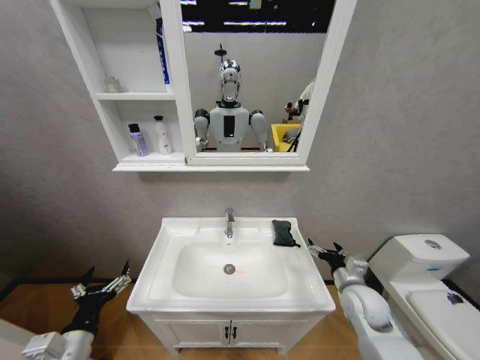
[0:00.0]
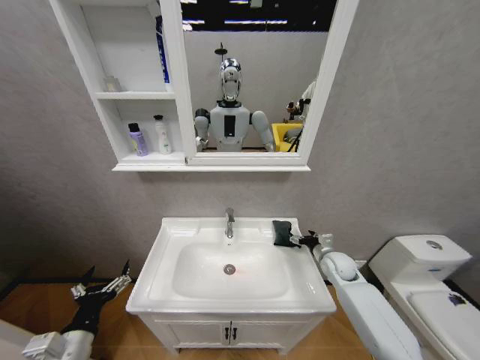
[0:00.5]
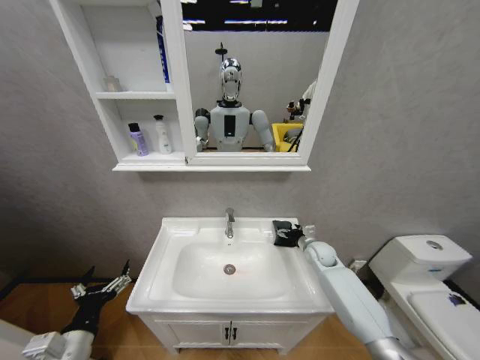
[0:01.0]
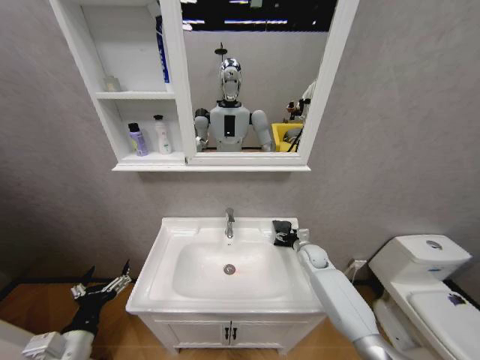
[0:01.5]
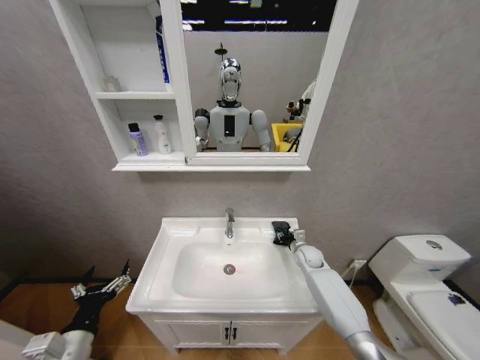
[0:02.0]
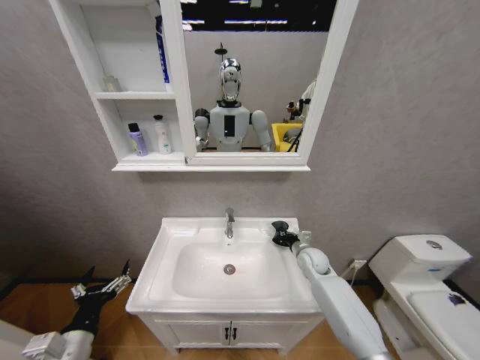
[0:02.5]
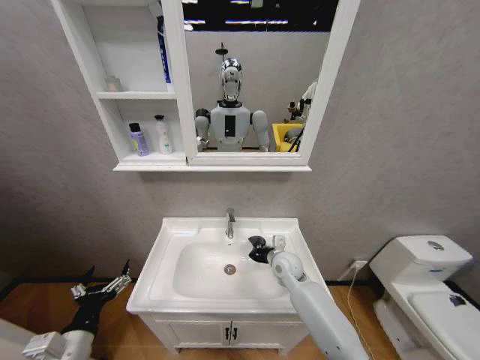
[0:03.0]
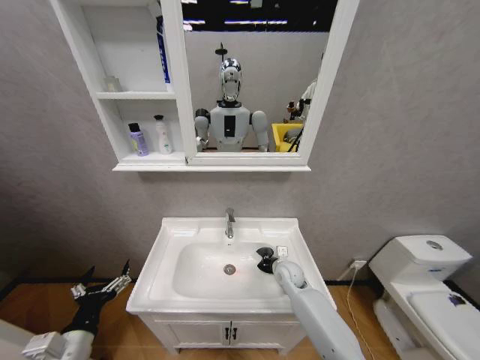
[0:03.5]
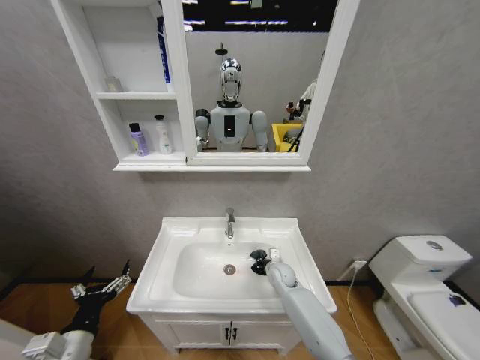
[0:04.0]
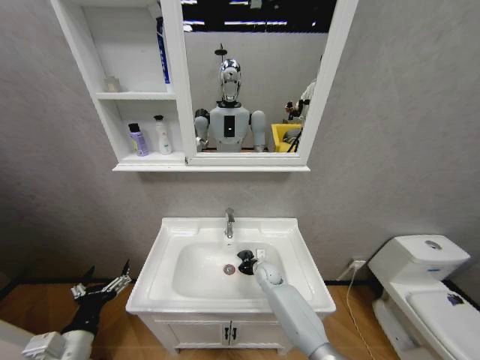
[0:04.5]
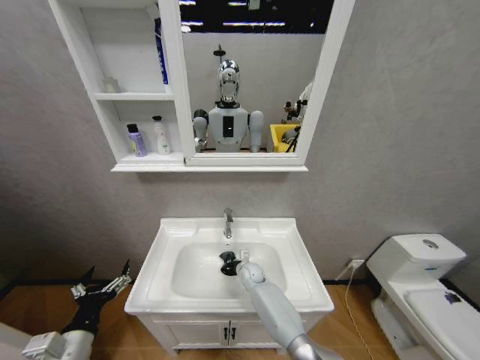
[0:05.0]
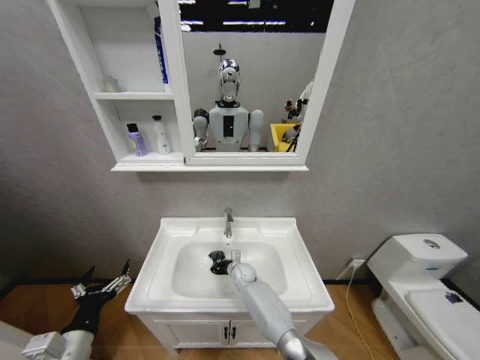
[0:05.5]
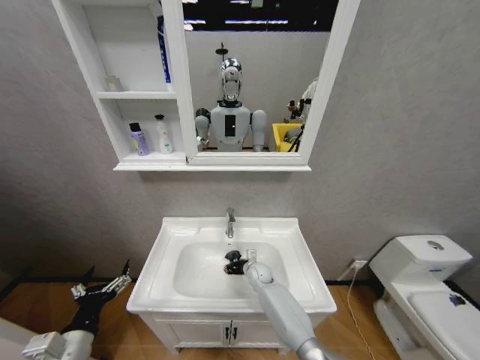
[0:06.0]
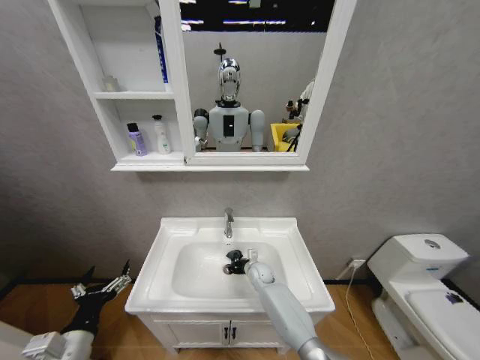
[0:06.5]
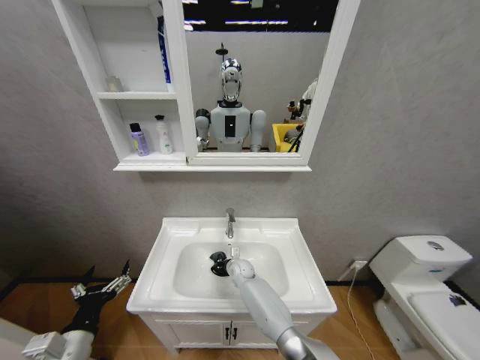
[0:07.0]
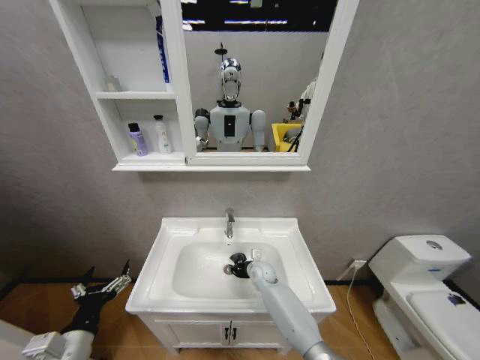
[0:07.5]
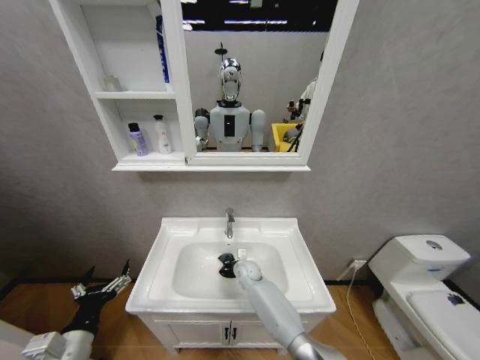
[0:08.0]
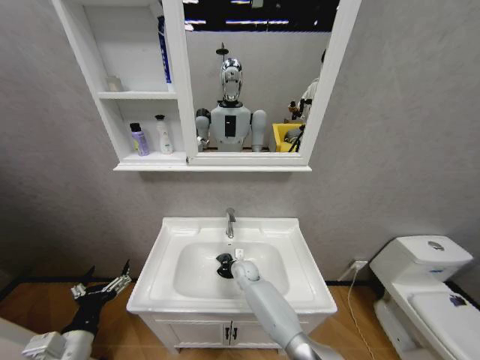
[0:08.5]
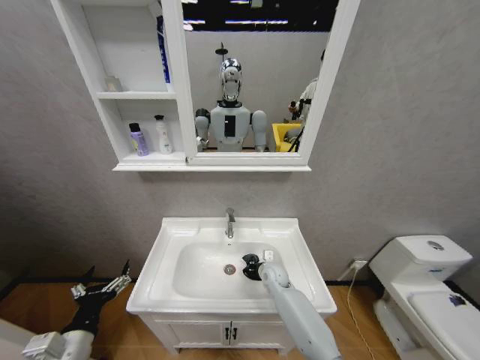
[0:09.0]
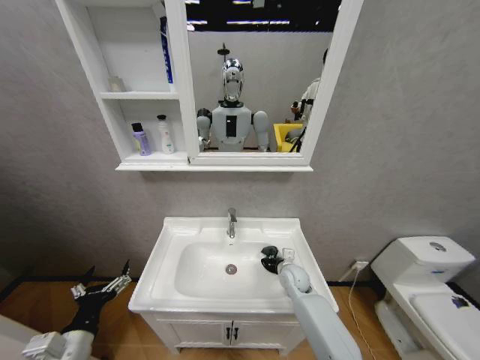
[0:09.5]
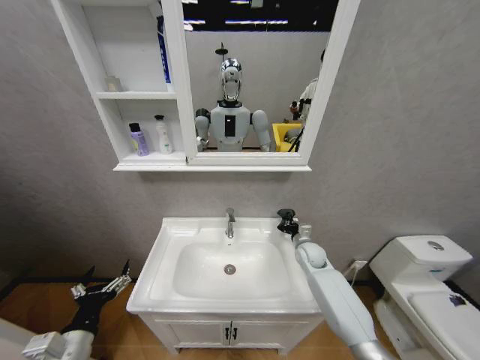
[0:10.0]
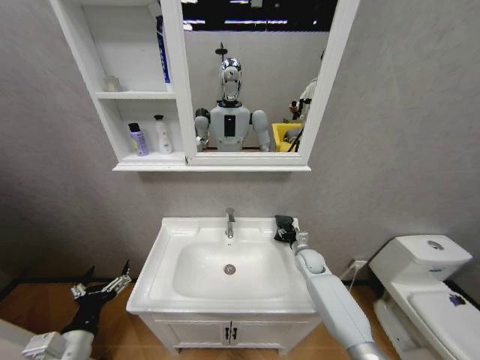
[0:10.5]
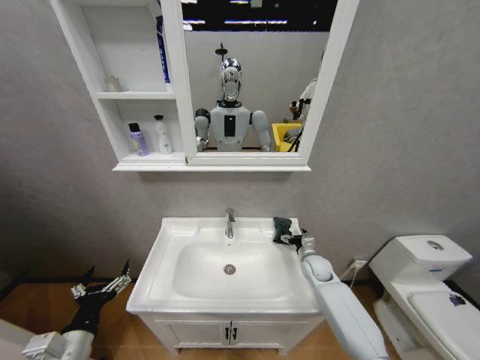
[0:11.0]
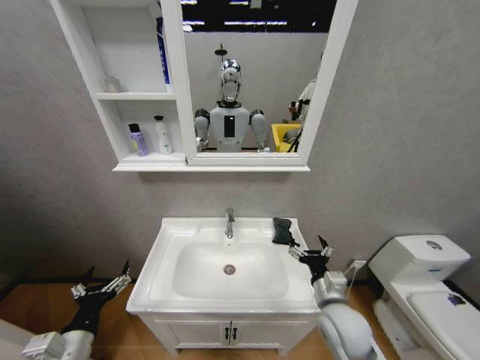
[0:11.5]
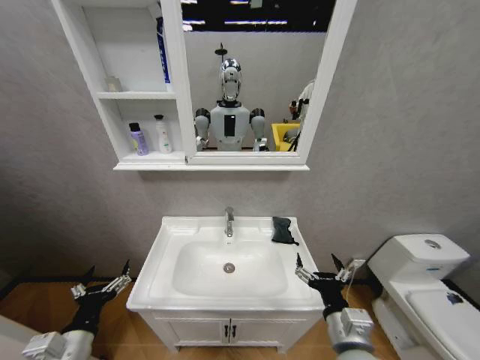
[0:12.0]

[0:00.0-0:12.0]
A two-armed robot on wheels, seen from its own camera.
Task of the whole recording: Move facial cleanser and shampoo from washbasin to cabinet, then wipe washbasin with towel.
0:00.0 to 0:02.0: The right gripper is displaced forward by roughly 20 cm, and closes its fingers.
0:02.0 to 0:04.0: The right gripper heads to the left and backward, covering roughly 15 cm, and closes its fingers.
0:04.0 to 0:06.0: The right gripper goes some 5 cm to the left.
0:06.0 to 0:08.0: The right gripper swings left and right, roughly 10 cm each way, with 2 reversals.
0:08.0 to 0:10.0: The right gripper moves to the right and upward, roughly 25 cm.
0:10.0 to 0:12.0: The right gripper moves backward, some 30 cm, and opens up.

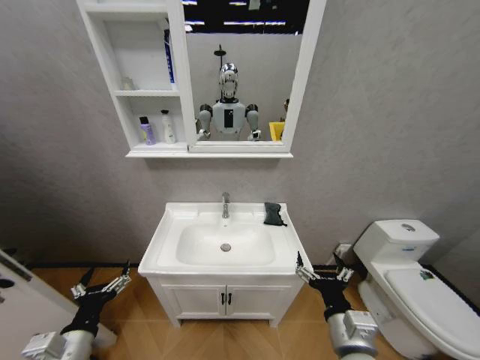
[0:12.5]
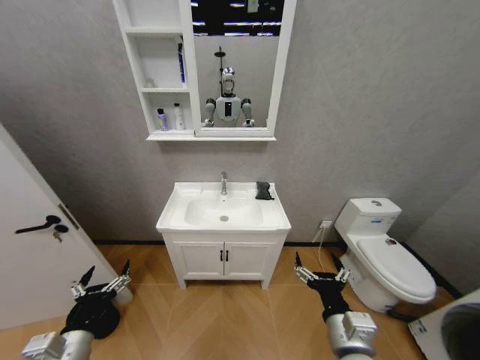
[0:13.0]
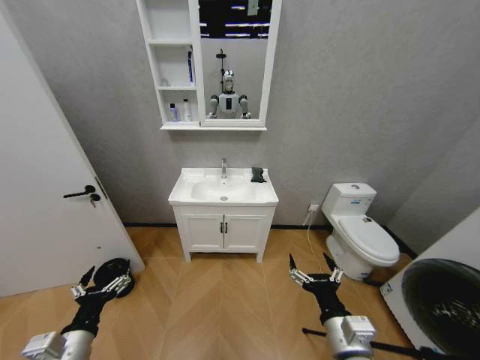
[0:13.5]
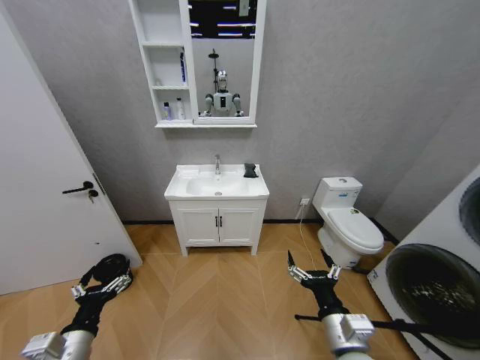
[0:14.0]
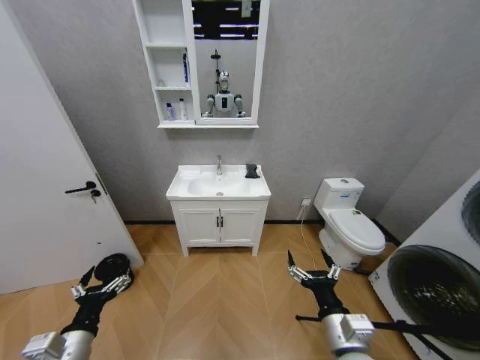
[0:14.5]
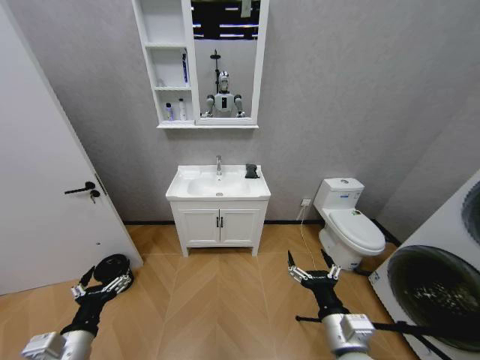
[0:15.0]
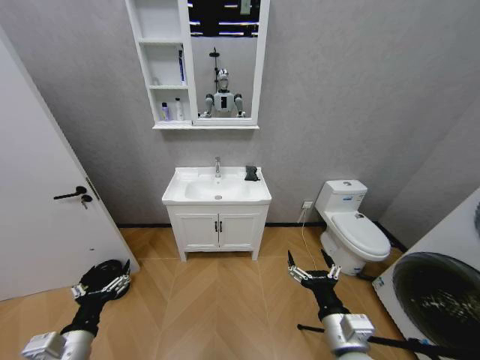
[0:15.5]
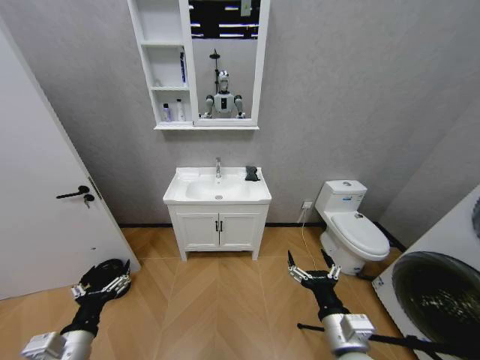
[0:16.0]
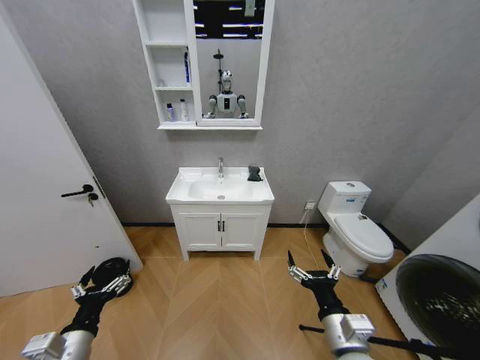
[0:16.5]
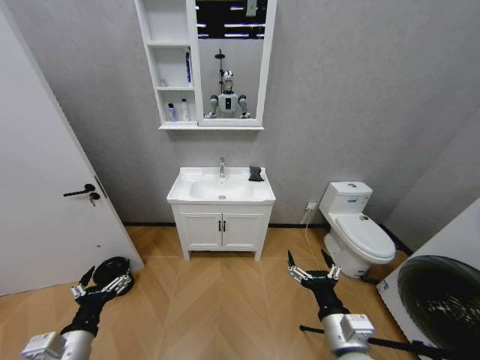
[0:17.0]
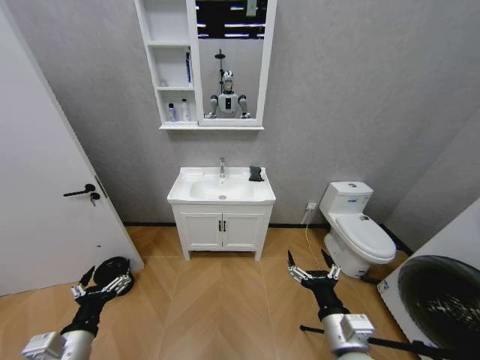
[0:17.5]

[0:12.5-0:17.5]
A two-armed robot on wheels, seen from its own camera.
Task of the whole recording: Move facial cleanser and shampoo from washbasin to cabinet, then wipe washbasin with towel.
0:15.0 to 0:17.5: Both grippers stay put.

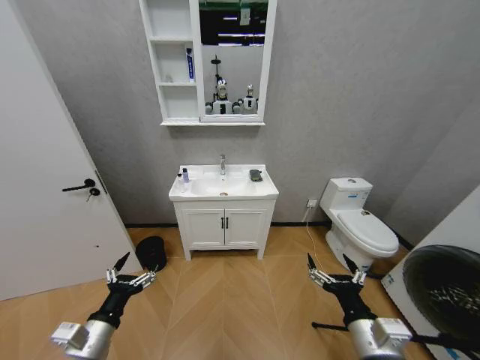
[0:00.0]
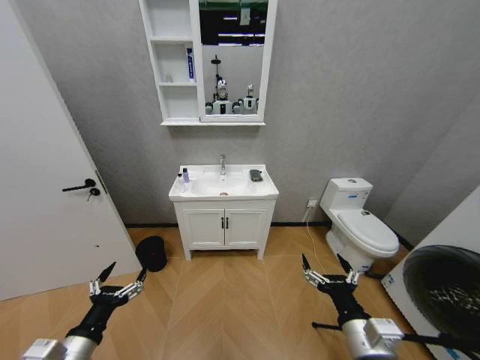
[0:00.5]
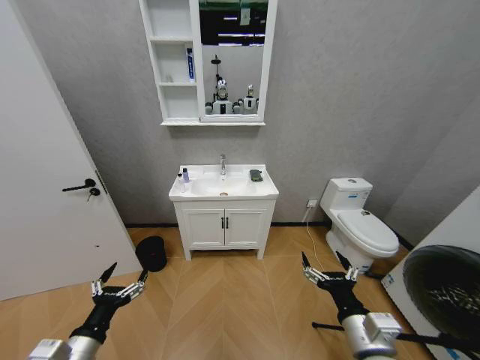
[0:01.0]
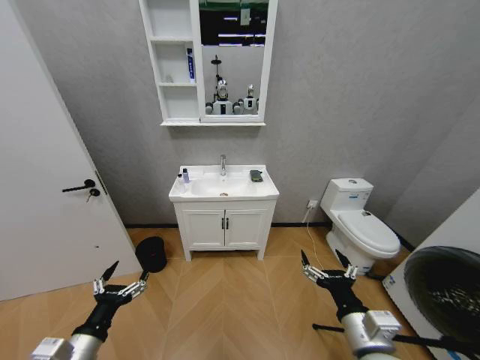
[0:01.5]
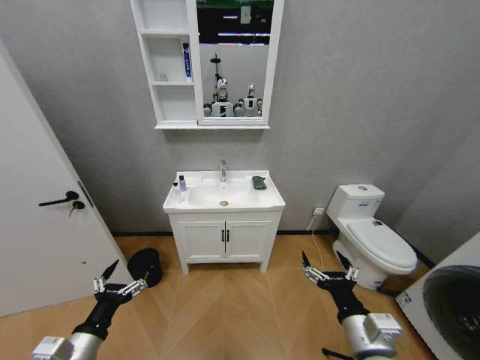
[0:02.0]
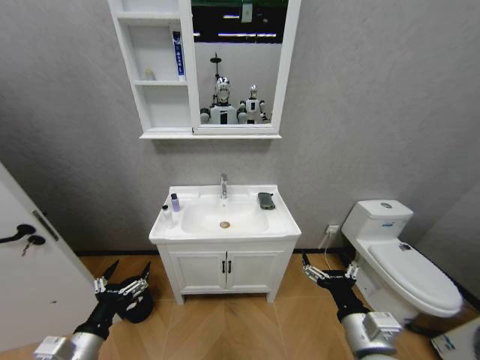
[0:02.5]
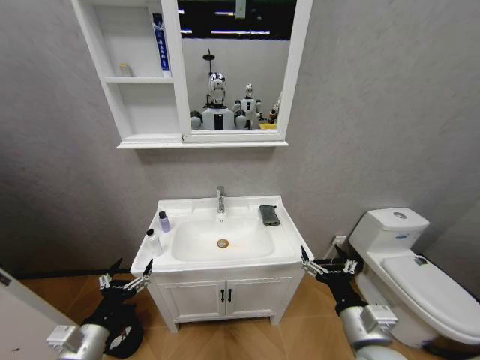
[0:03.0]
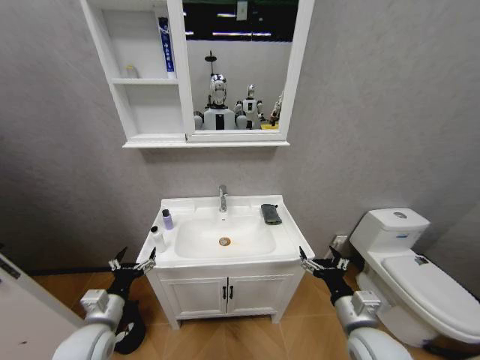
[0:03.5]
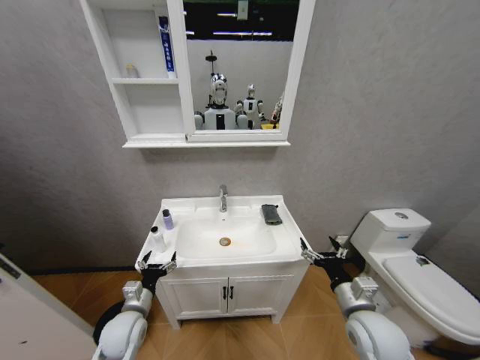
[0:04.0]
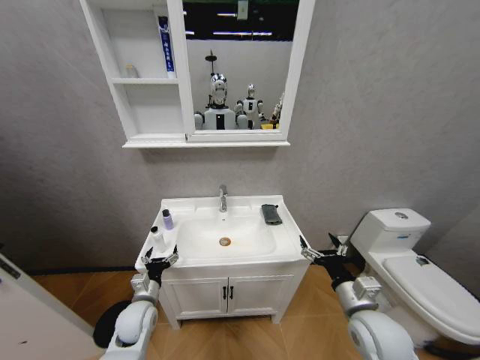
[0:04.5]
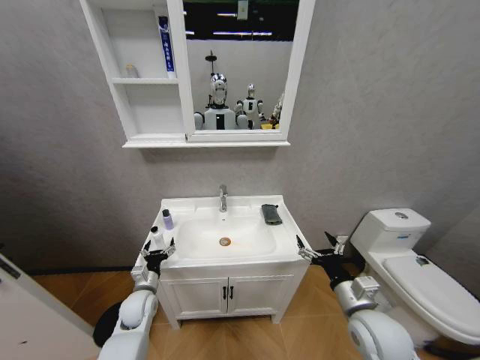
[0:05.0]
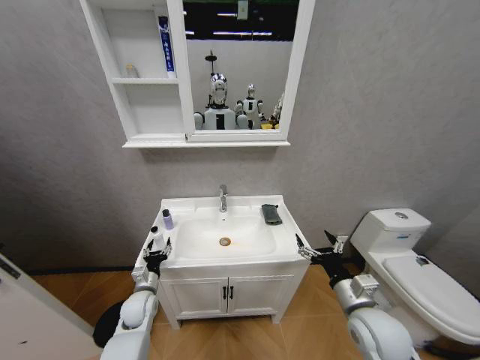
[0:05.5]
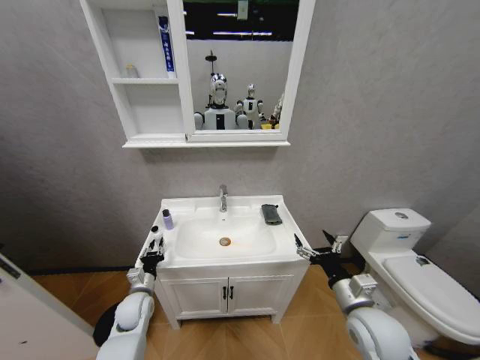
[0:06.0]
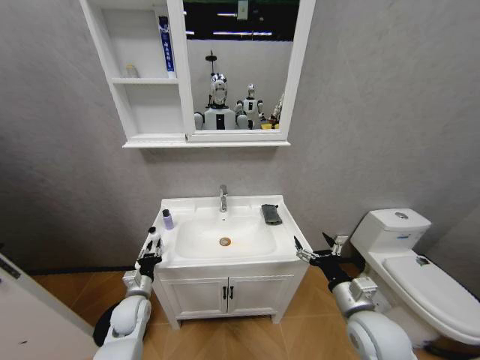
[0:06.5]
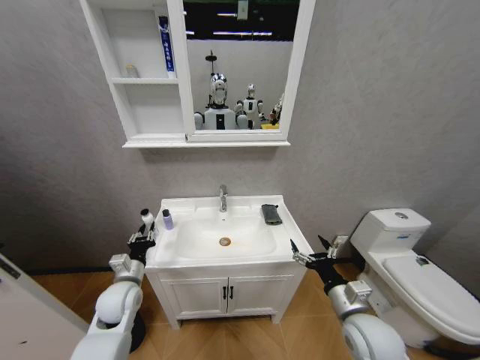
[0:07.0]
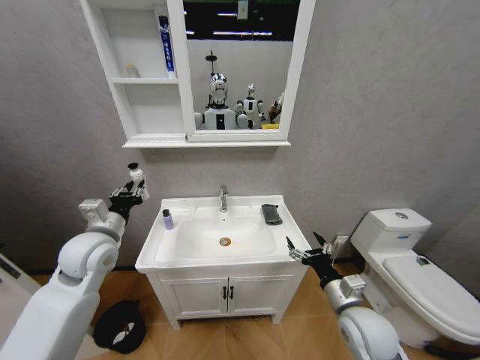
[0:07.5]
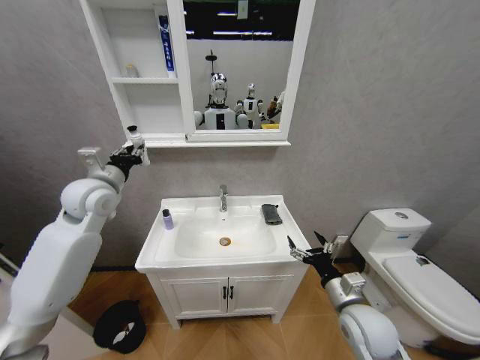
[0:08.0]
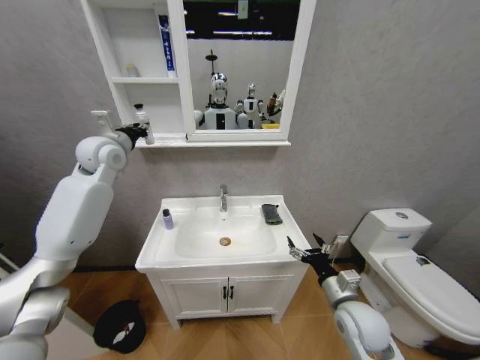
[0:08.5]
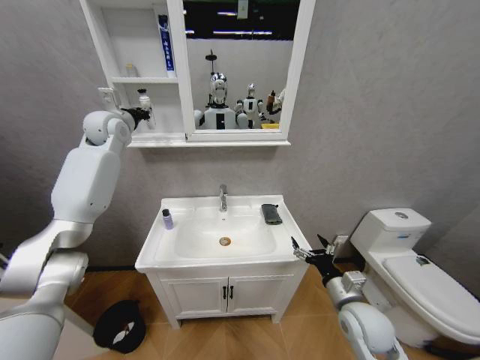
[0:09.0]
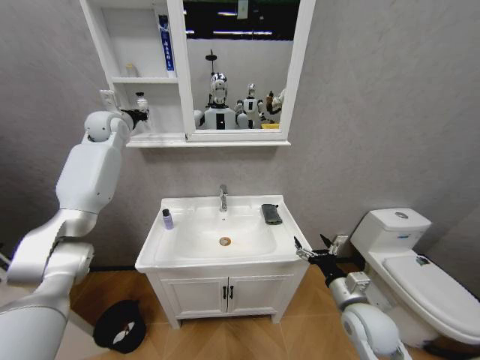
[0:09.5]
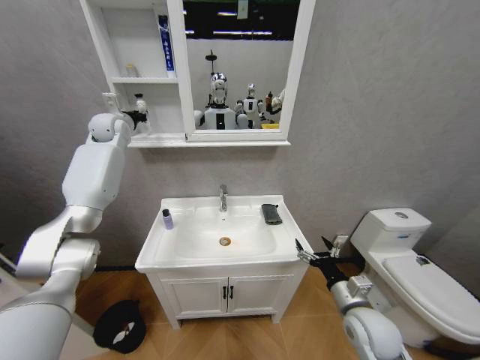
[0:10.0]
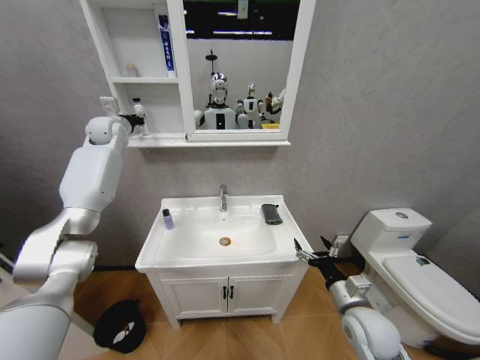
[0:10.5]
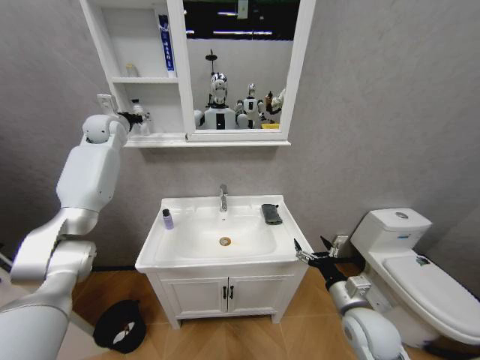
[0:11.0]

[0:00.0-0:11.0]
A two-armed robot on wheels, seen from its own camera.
Task of the whole recording: Move facial cleanser and shampoo from washbasin to cabinet, then wipe washbasin with towel.
0:02.0 to 0:03.5: The right gripper heads forward, covering roughly 5 cm, while the left gripper is displaced forward by roughly 10 cm.
0:03.5 to 0:05.5: The left gripper heads downward and forward, covering roughly 15 cm, and closes.
0:05.5 to 0:07.5: The left gripper shifts about 25 cm upward, and closes up.
0:07.5 to 0:09.0: The left gripper moves forward and upward, about 30 cm.
0:09.0 to 0:11.0: The left gripper changes place by roughly 5 cm, and opens up.
